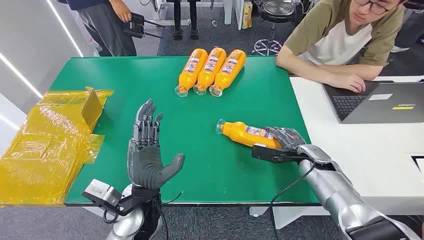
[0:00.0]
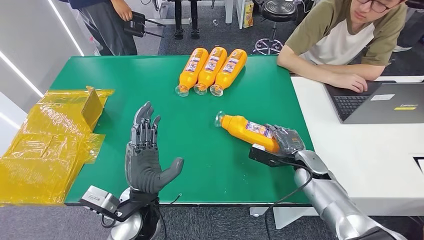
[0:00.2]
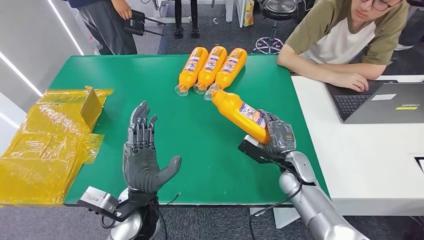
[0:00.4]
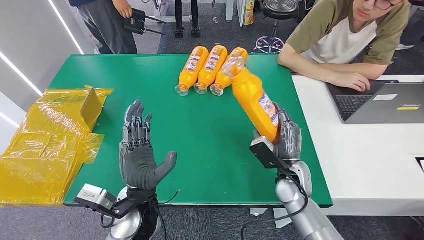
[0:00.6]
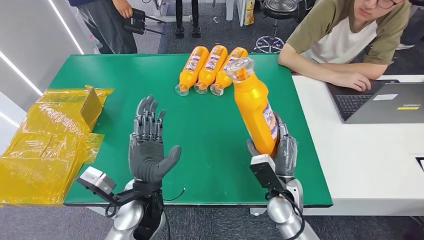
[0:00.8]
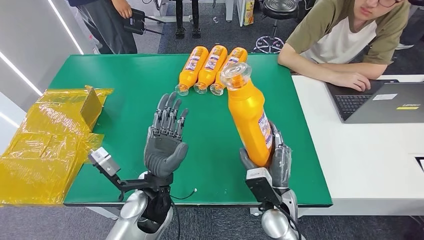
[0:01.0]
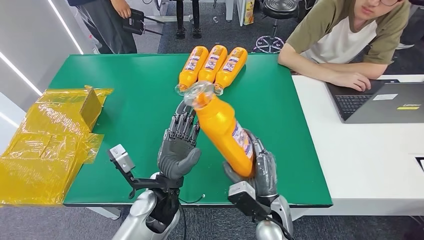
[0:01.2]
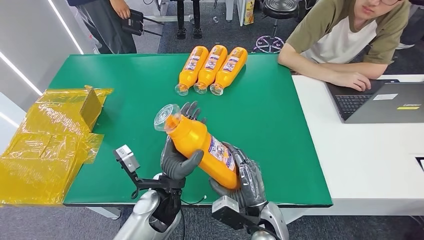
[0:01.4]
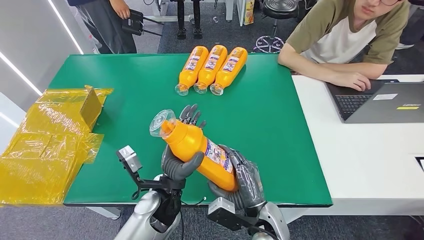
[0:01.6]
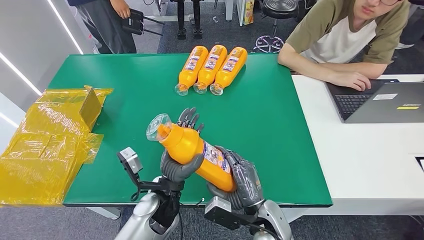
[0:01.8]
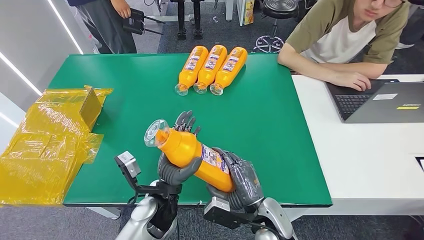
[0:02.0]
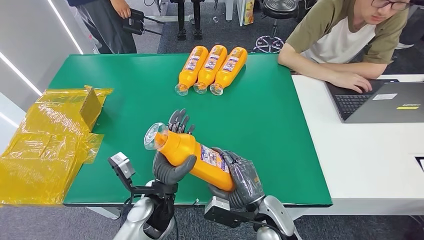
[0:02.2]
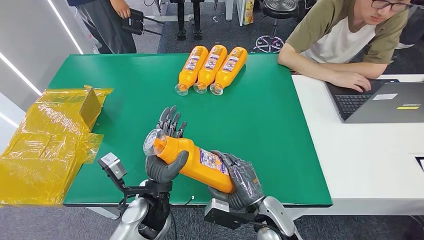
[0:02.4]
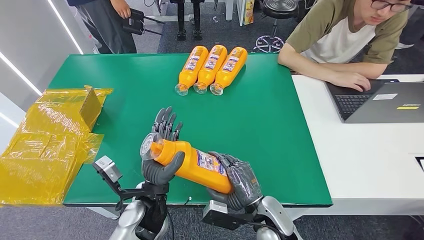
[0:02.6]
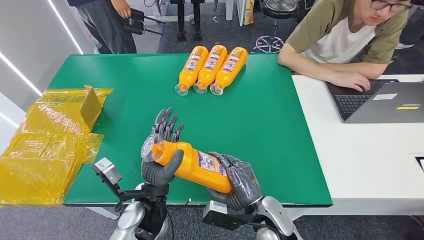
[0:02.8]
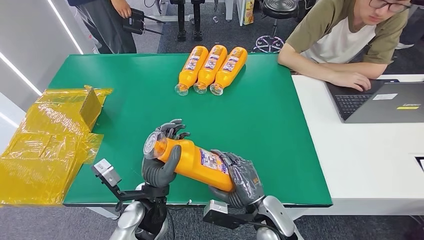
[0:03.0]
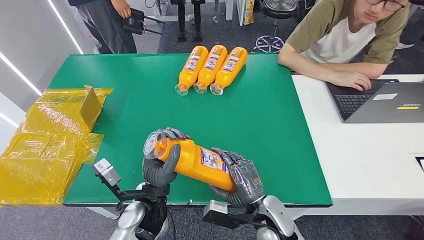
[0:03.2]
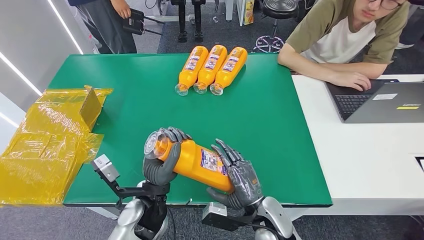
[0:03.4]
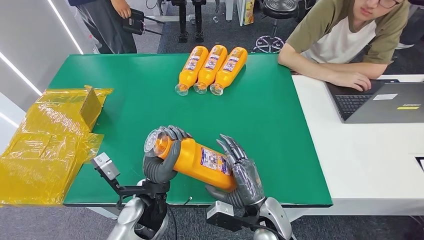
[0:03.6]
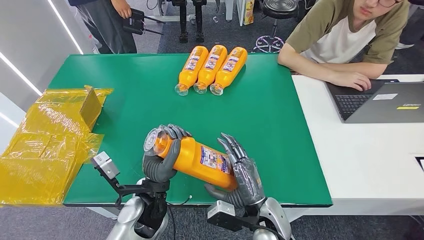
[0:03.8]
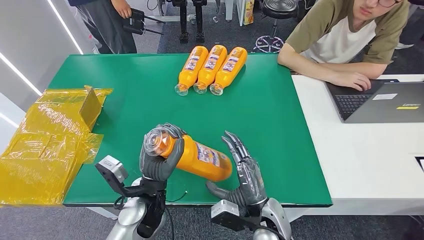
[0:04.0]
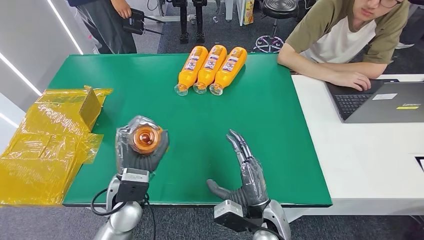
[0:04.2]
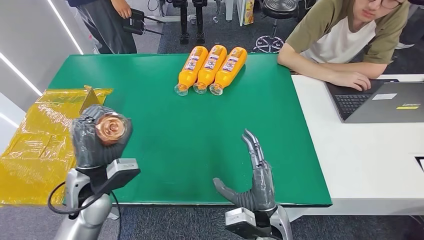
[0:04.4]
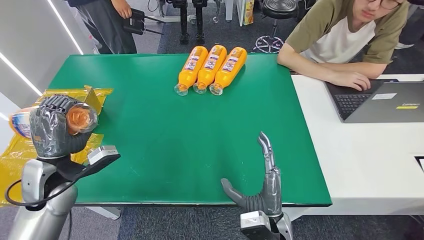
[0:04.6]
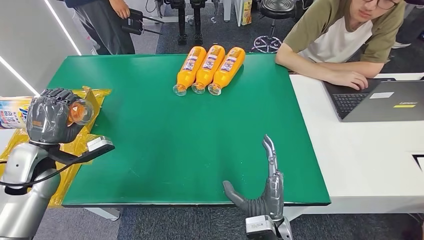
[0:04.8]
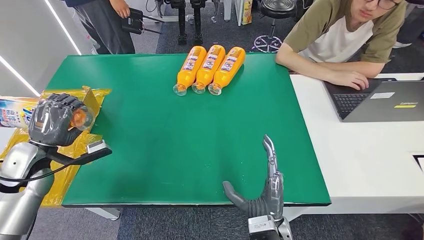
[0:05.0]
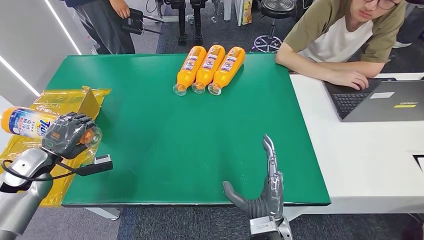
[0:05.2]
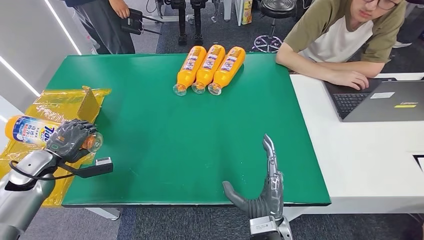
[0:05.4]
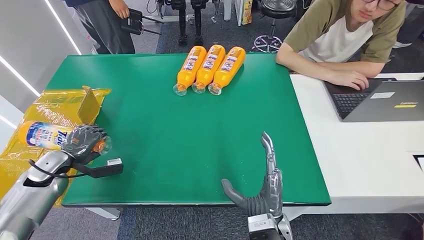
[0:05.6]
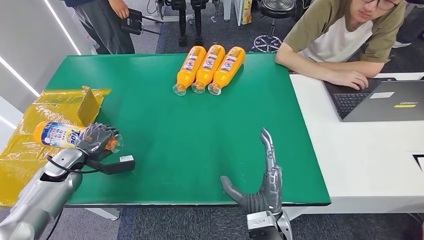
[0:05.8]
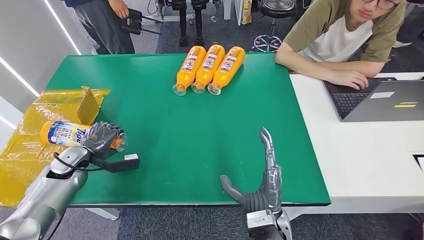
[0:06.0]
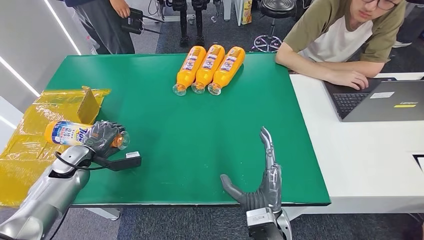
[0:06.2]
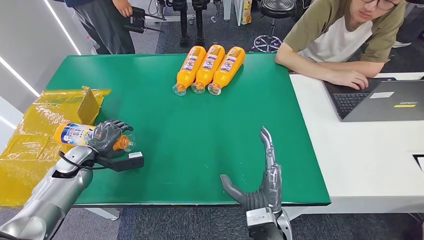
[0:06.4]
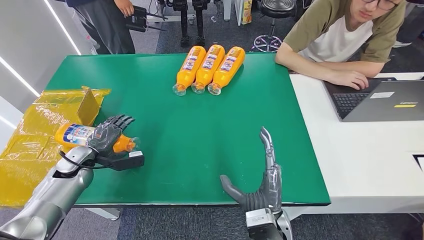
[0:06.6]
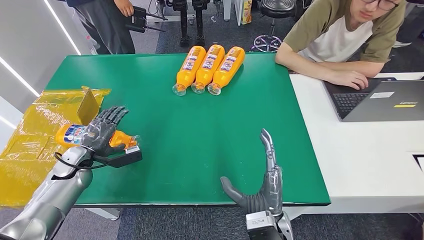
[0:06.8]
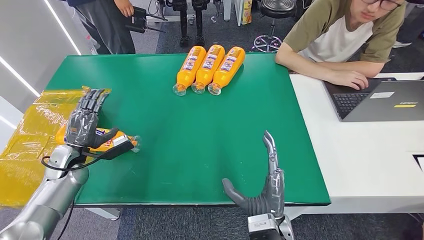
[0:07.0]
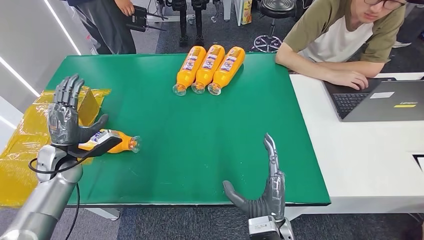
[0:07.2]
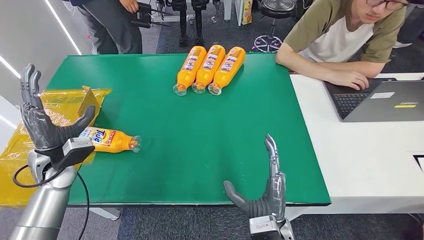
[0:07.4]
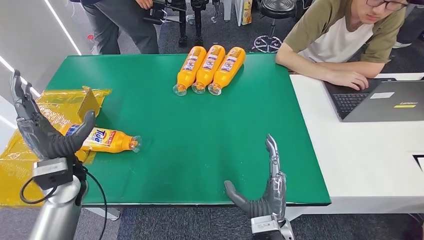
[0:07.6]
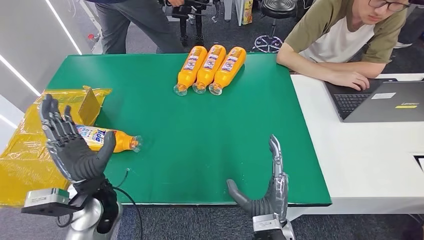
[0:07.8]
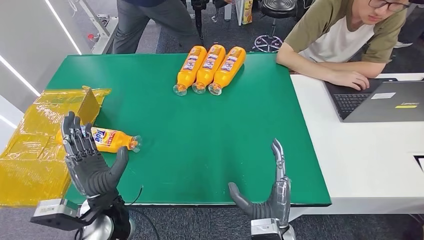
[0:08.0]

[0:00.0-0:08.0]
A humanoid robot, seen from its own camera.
Step, 0:00.0 to 0:02.0: Pick up the bottle from the table.
Step, 0:02.2 to 0:08.0: Turn the bottle to the front side.
0:01.6 to 0:03.2: The hands stay close to where they were, moving slightly.
0:04.8 to 0:06.4: The left hand travels downward by approximately 10 cm.
0:06.4 to 0:08.0: The left hand goes roughly 25 cm to the right and backward.
